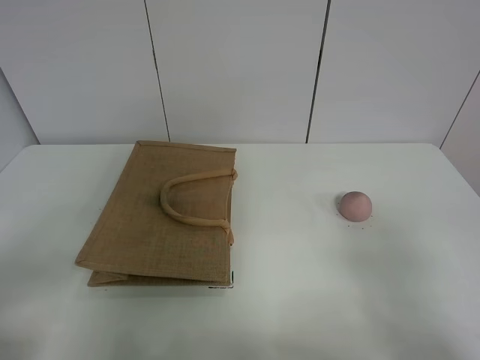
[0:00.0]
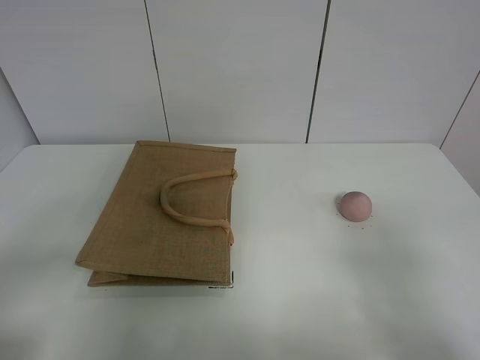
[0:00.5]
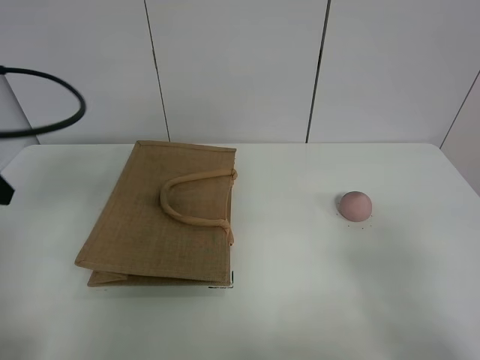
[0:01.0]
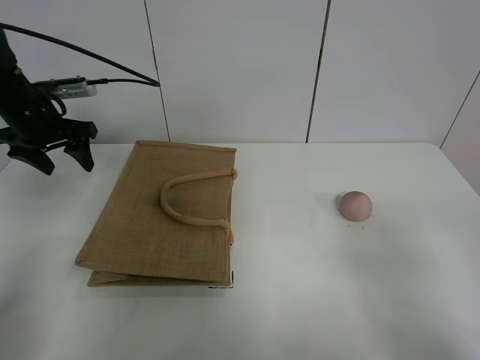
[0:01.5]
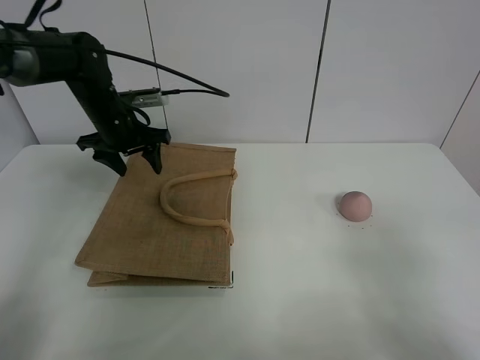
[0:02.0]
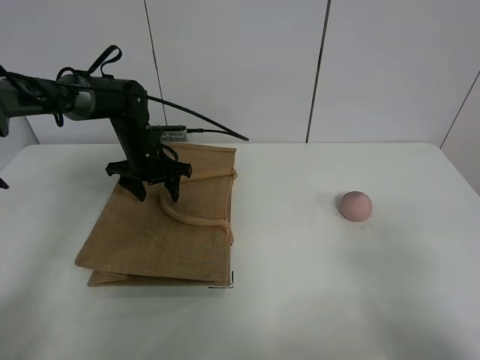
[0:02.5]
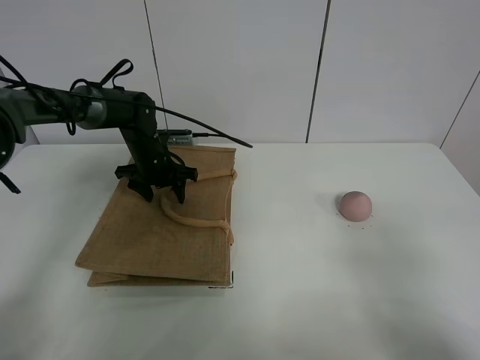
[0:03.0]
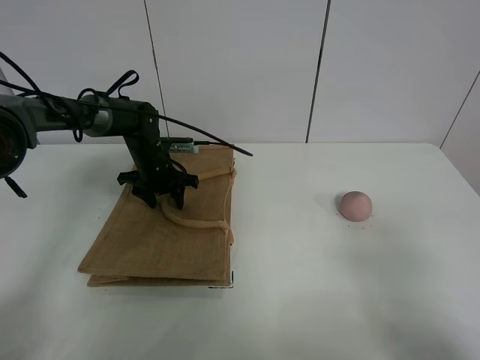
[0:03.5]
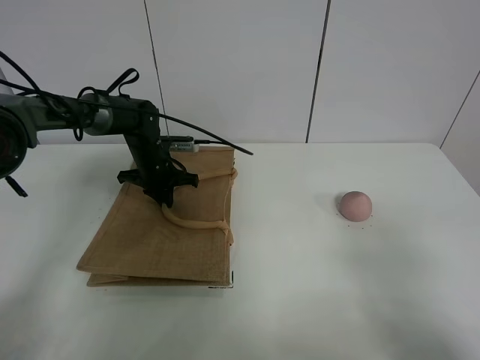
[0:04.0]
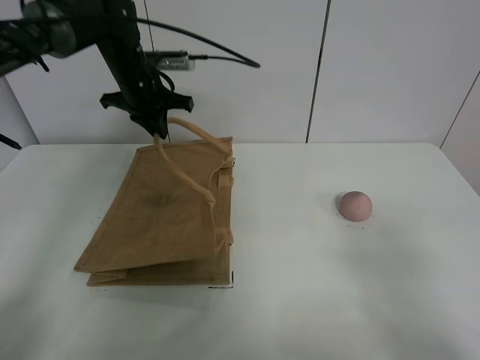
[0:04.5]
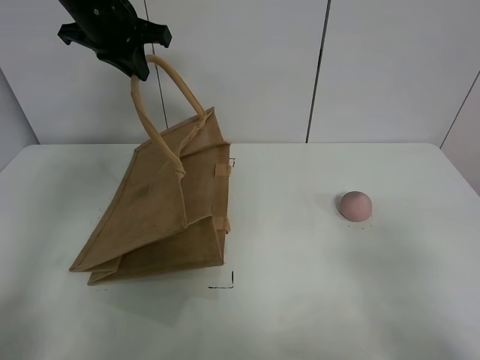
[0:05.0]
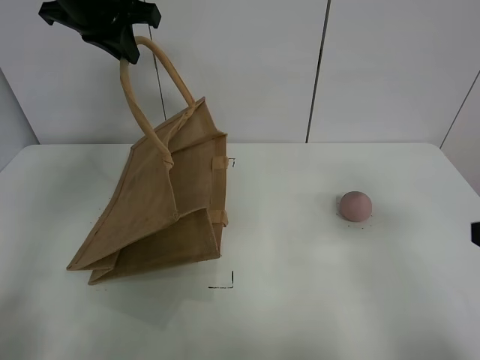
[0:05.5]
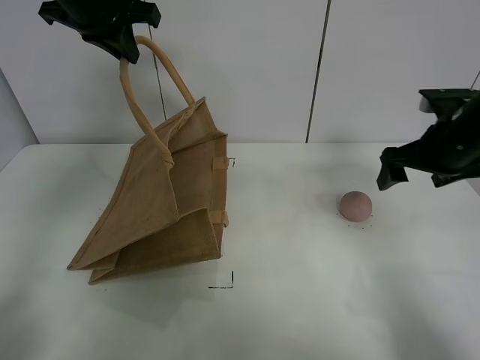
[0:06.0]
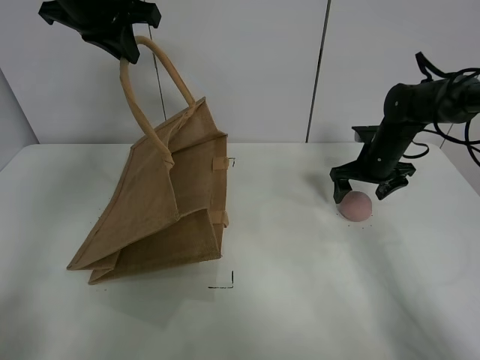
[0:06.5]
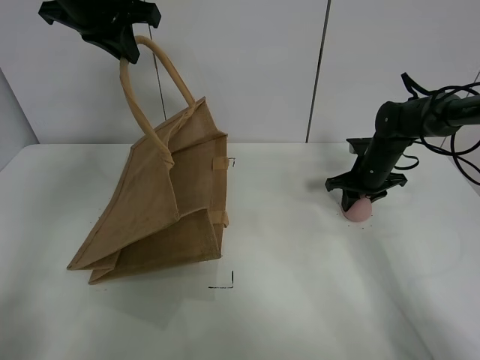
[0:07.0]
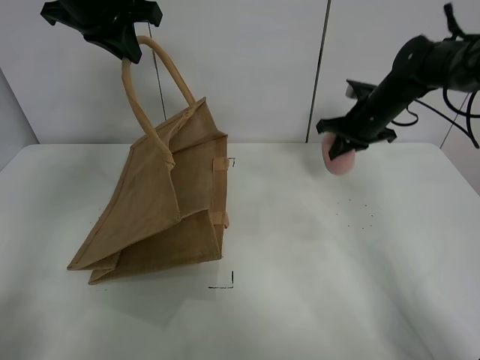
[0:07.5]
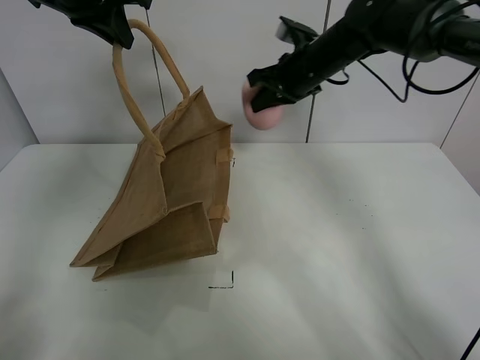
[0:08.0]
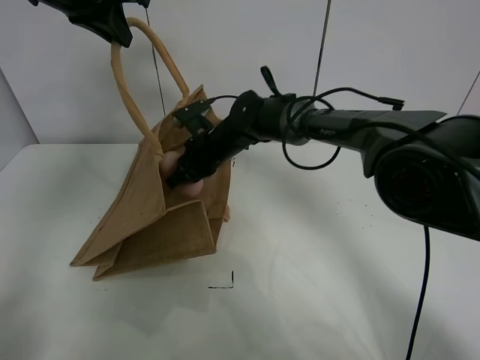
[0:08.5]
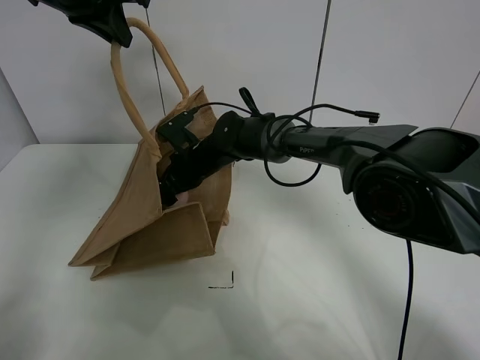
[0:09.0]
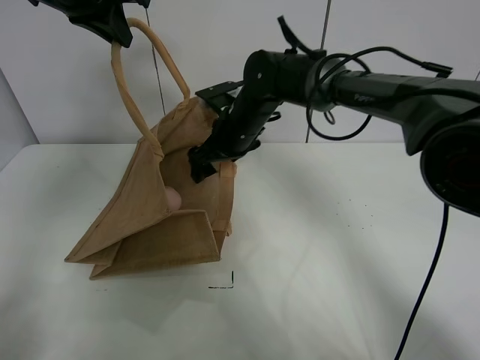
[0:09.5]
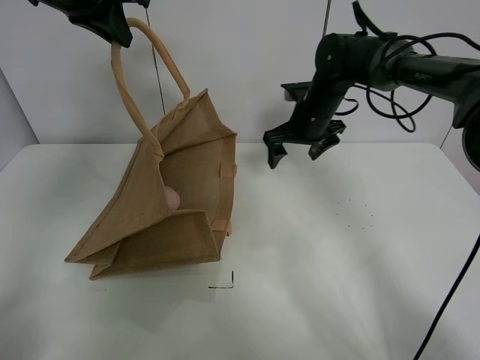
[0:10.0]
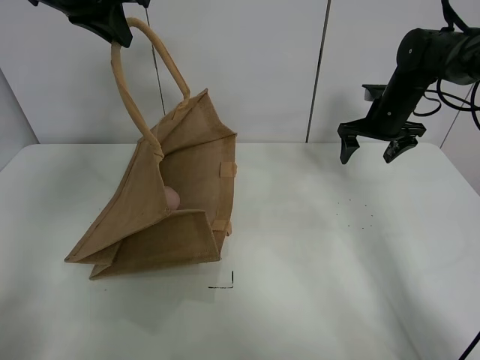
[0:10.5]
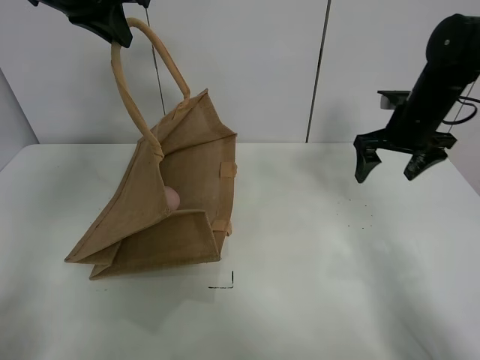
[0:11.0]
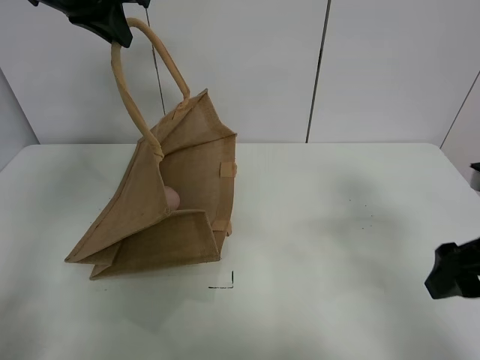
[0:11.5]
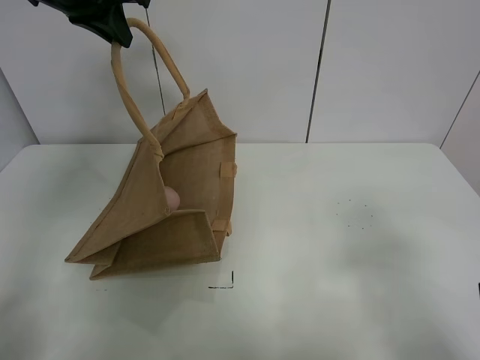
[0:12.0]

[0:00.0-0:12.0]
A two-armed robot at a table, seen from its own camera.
Task of the whole recording: open the brown linen bag and put the peach in the bag.
Step, 0:00.0 to 0:05.0: Lift the handbag with left gripper.
Step, 0:05.5 to 0:07.0: Grasp the peach with right gripper.
Step, 0:07.5 to 0:09.5: Place the peach in the handbag with right gripper.
0:00.0 to 0:02.0: The left gripper moves forward, roughly 40 cm.
0:02.0 to 0:04.0: The left gripper heads downward, covering about 10 cm, and closes its fingers.
0:04.0 to 0:06.0: The left gripper travels upward by some 30 cm; the right gripper goes approximately 30 cm forward.
0:06.0 to 0:08.0: The right gripper heads to the left and forward, covering roughly 20 cm, moves roughly 15 cm downward and comes back, and closes.
0:08.0 to 0:10.0: The right gripper is displaced downward by approximately 10 cm, moves about 15 cm to the left and comes back, and opens its fingers.
0:10.0 to 0:12.0: The right gripper heads backward, covering some 40 cm.

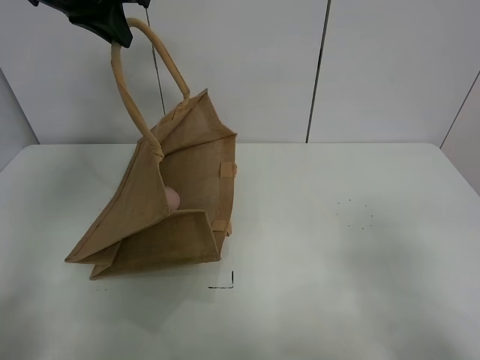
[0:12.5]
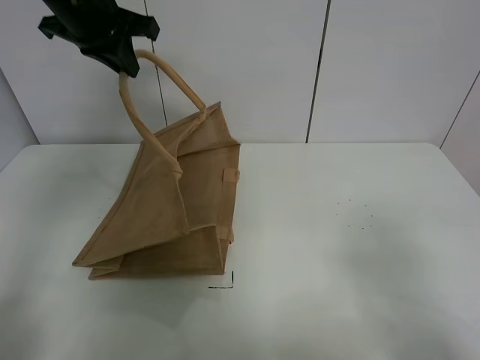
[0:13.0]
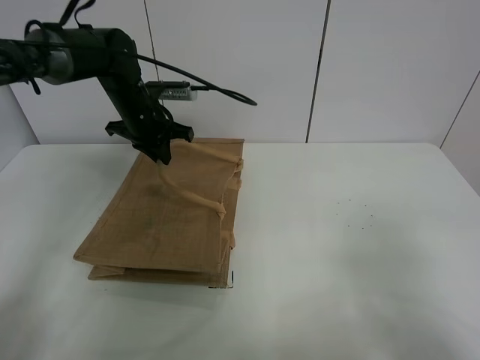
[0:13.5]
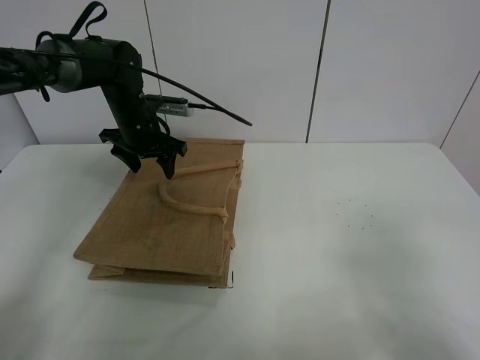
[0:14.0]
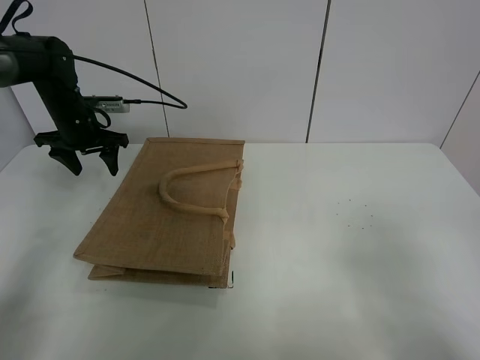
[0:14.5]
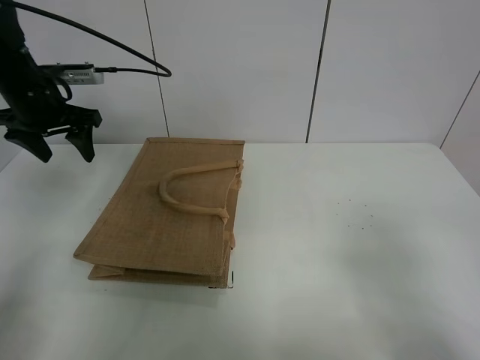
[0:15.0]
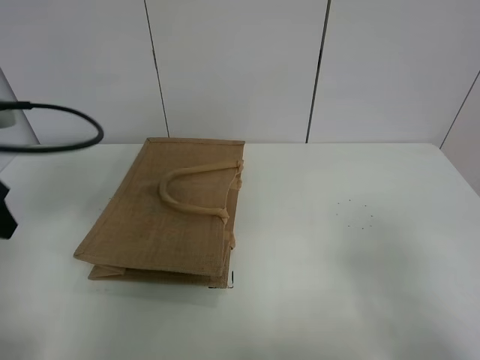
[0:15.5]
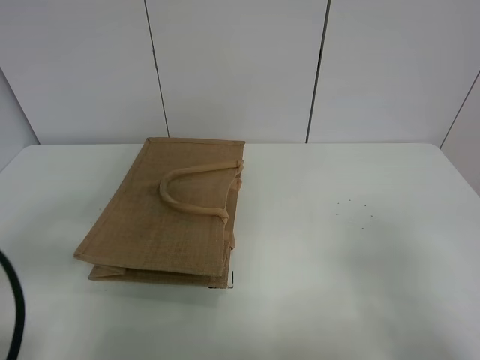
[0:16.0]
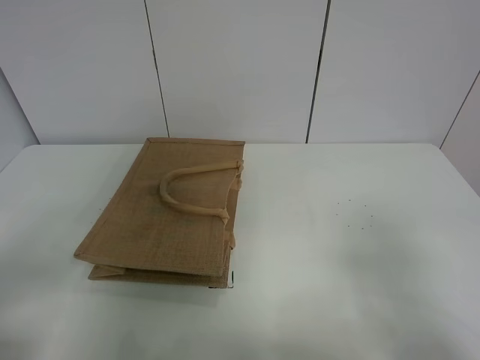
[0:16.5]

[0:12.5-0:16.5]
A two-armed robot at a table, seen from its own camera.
Task of the whole recording: open the brown linen bag and put the peach in the bag.
0:12.5 to 0:14.5: The left gripper moves downward and to the left, roughly 25 cm, and opens its fingers.
0:14.5 to 0:16.5: The left gripper travels backward by roughly 50 cm.
